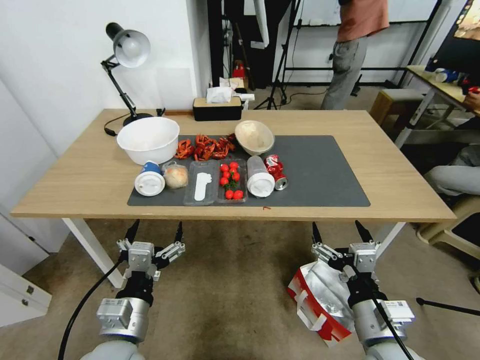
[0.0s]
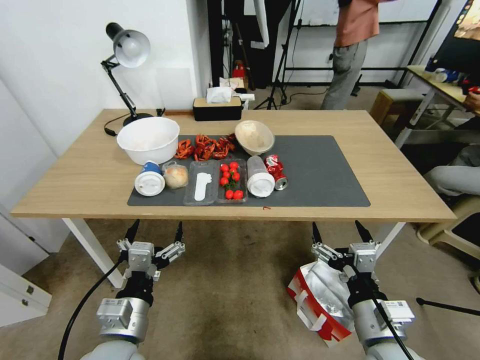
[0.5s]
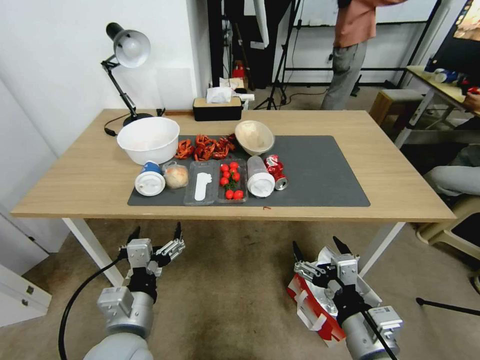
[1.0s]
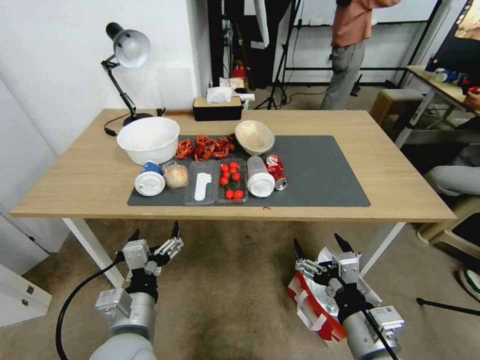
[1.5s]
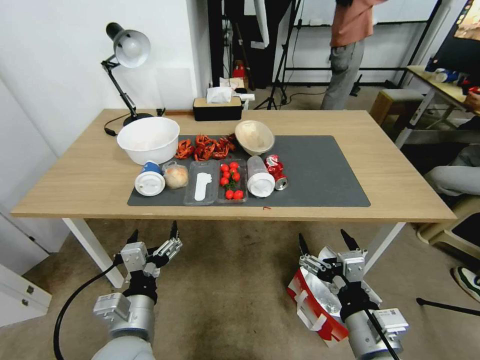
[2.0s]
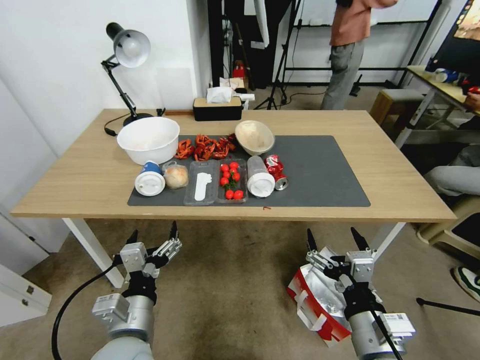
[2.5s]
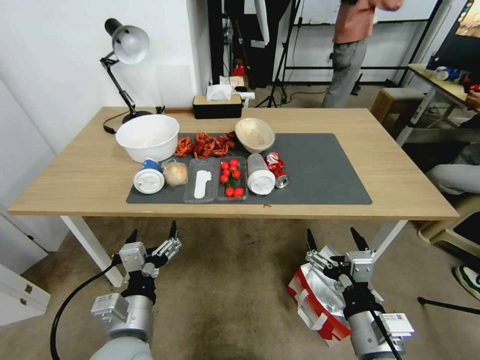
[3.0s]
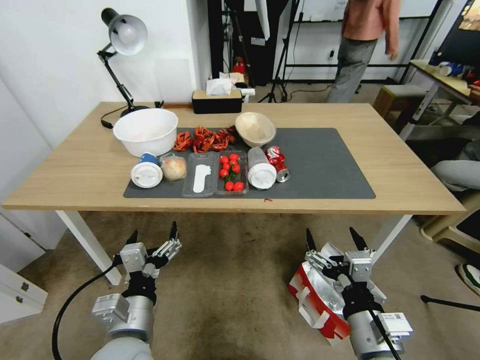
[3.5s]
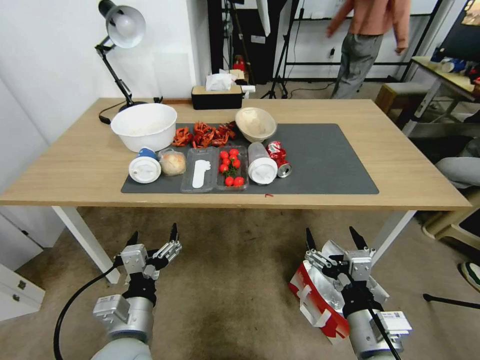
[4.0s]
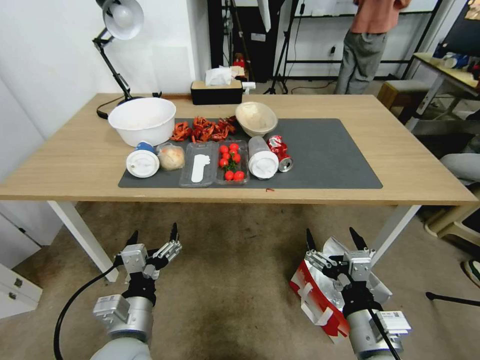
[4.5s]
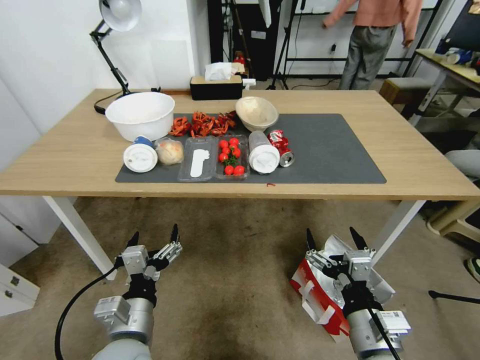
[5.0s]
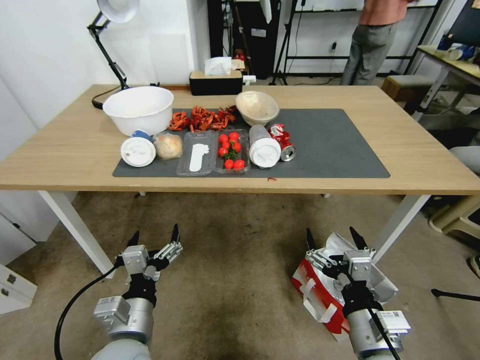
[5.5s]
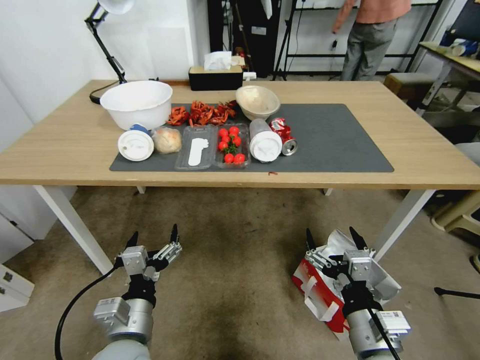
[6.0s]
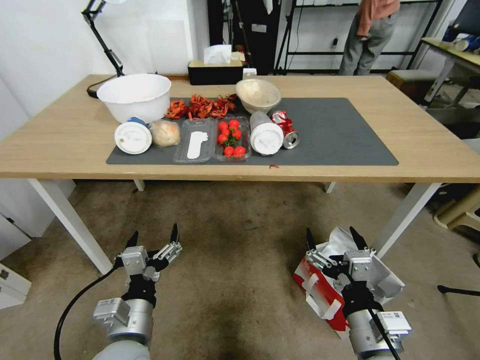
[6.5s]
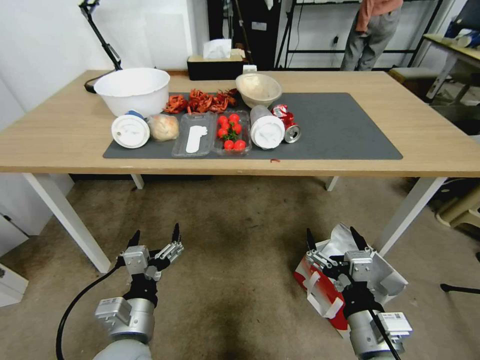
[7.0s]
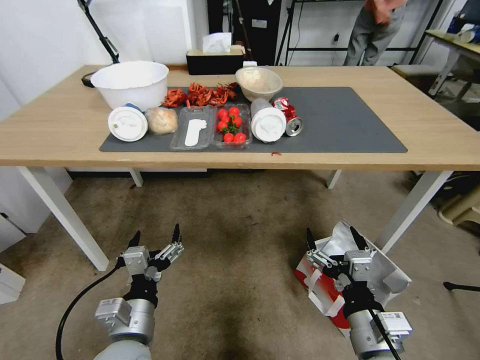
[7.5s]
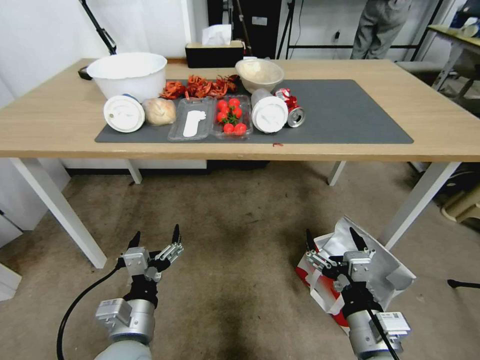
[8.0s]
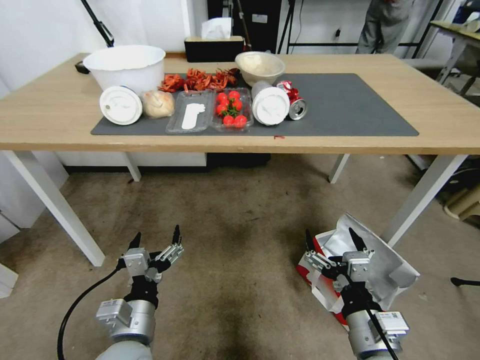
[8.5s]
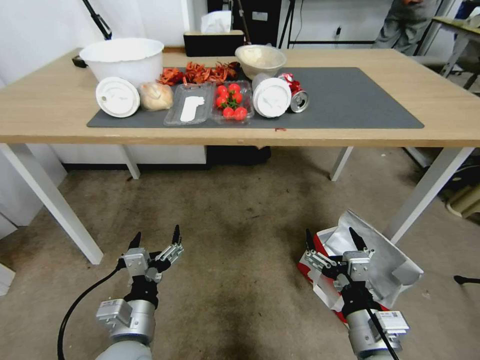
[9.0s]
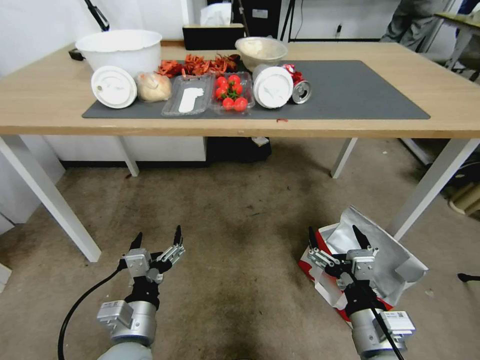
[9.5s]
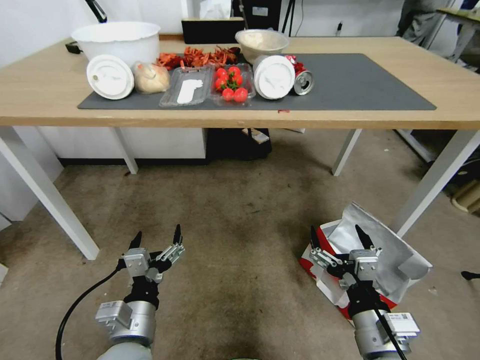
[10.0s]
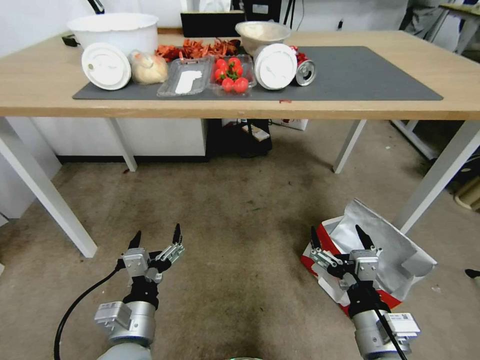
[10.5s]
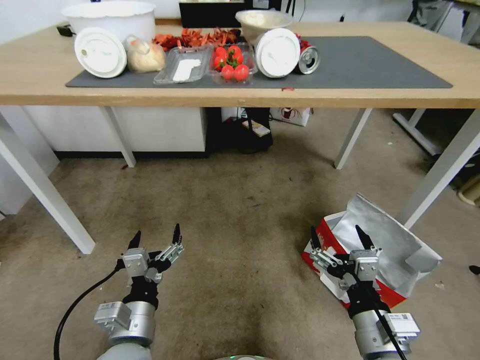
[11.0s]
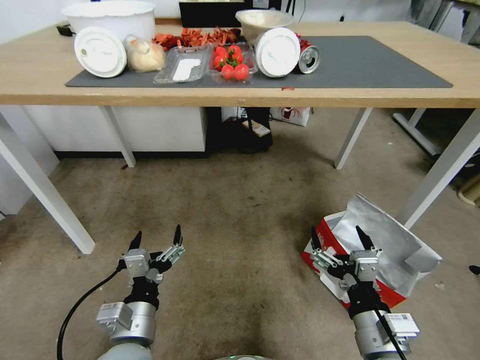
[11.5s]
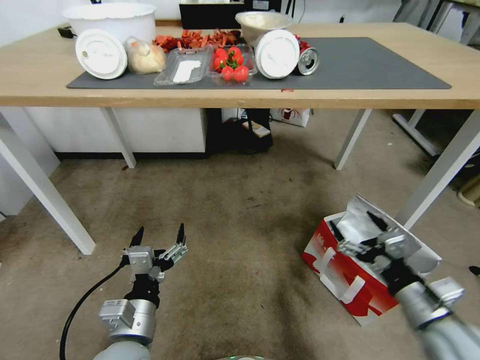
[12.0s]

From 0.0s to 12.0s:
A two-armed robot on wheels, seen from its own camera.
Task of the whole recording: Pick up the food delivery bag from the floor and place it on the table.
From 10.0s to 12.0s: The right gripper shifts some 15 cm to the right and forward.

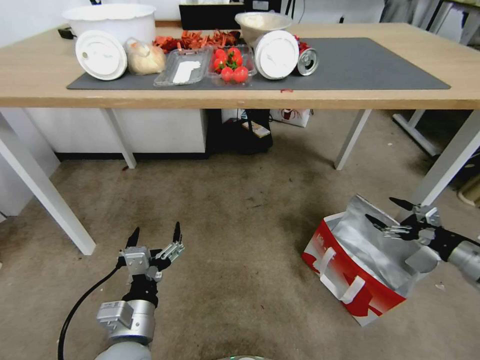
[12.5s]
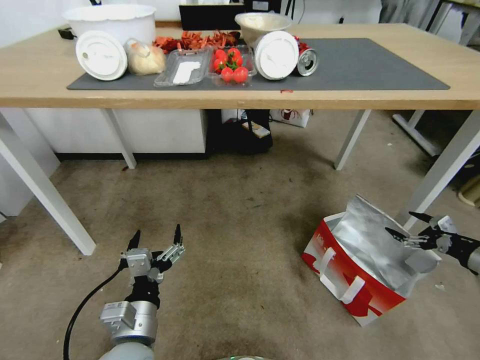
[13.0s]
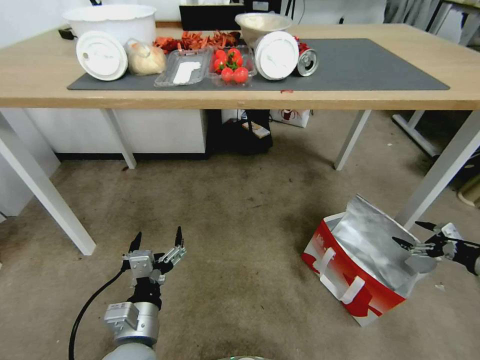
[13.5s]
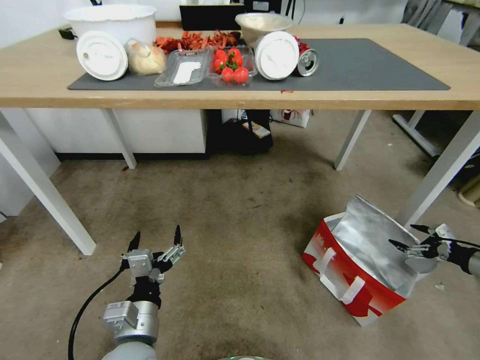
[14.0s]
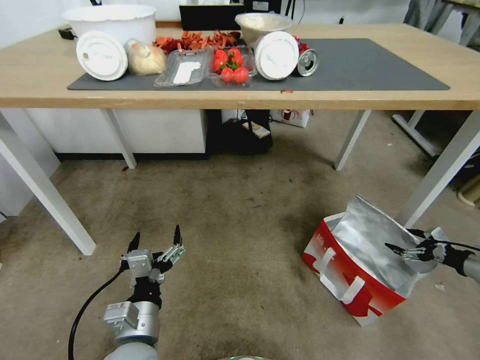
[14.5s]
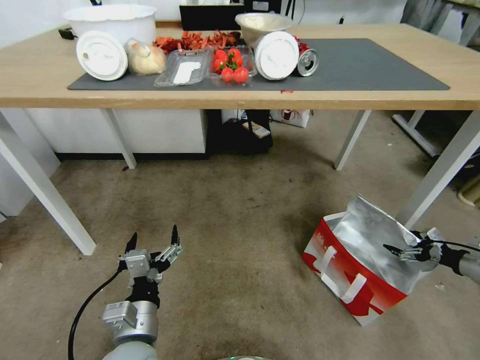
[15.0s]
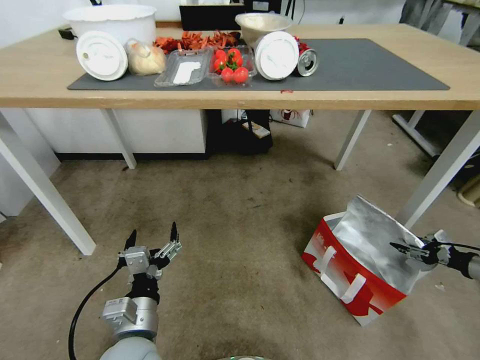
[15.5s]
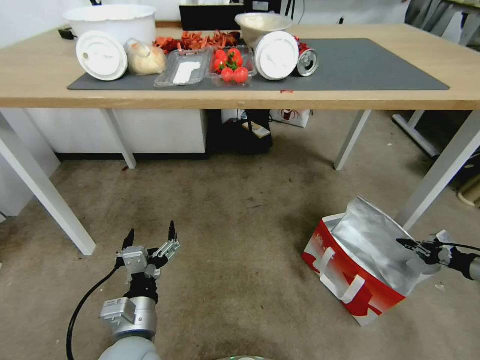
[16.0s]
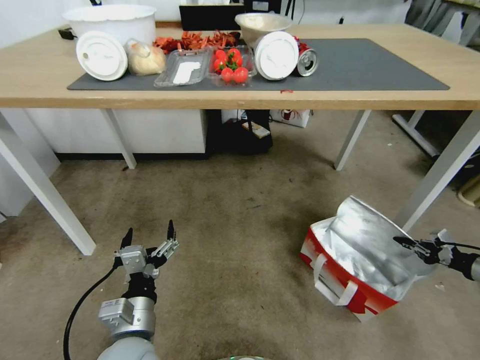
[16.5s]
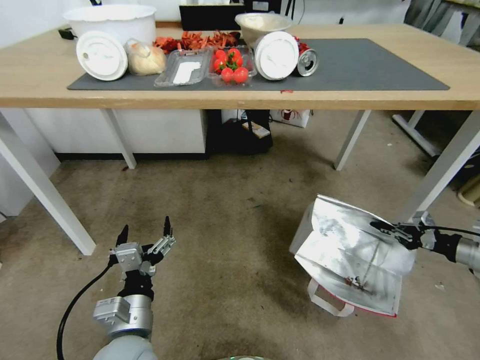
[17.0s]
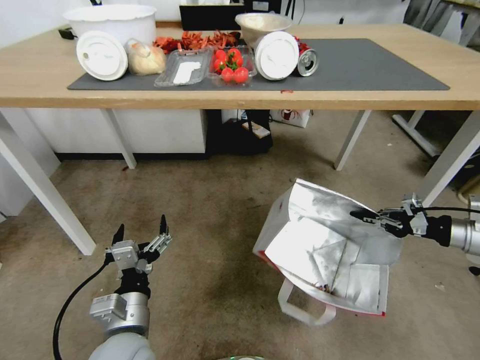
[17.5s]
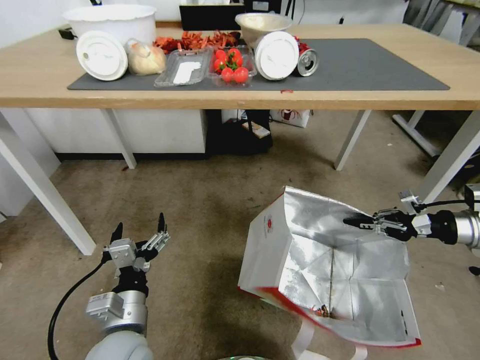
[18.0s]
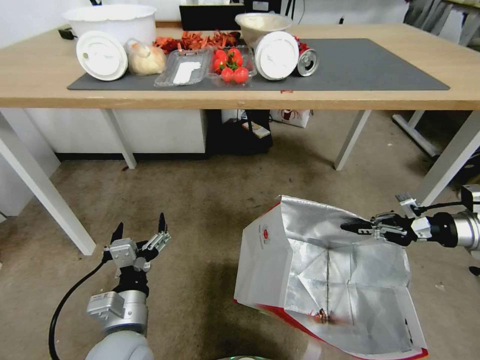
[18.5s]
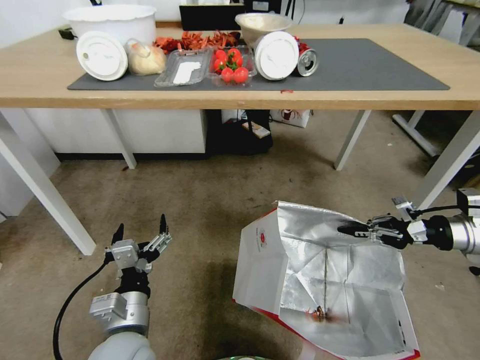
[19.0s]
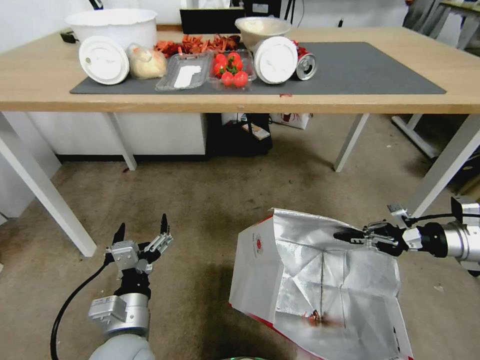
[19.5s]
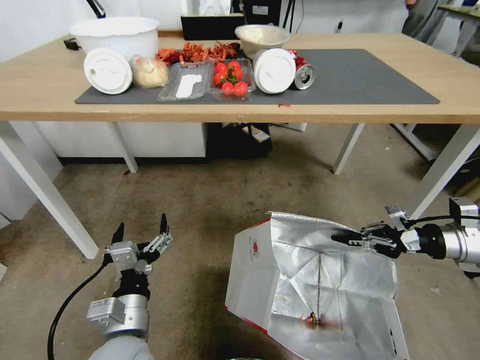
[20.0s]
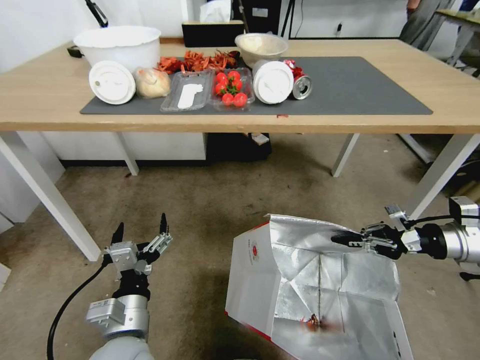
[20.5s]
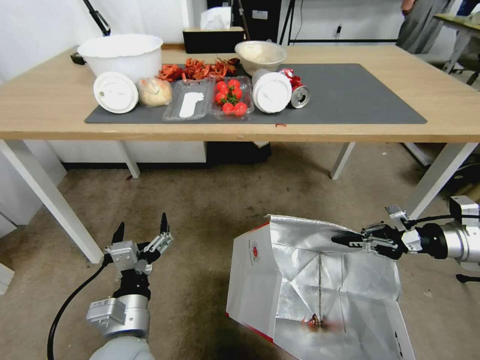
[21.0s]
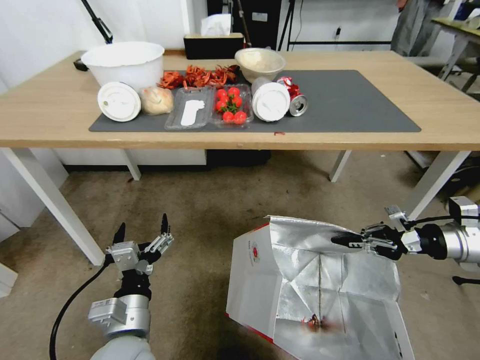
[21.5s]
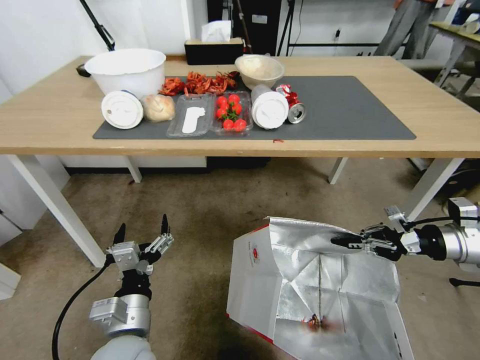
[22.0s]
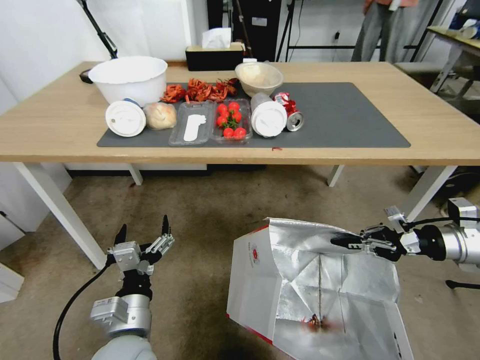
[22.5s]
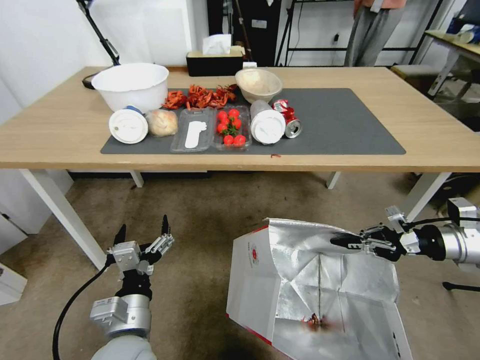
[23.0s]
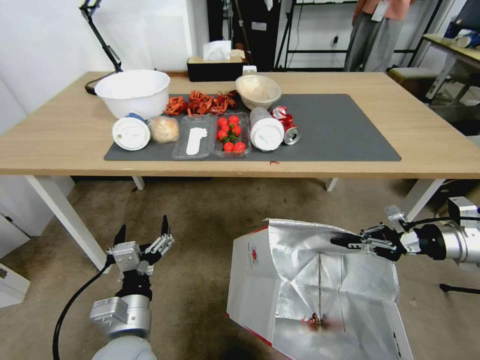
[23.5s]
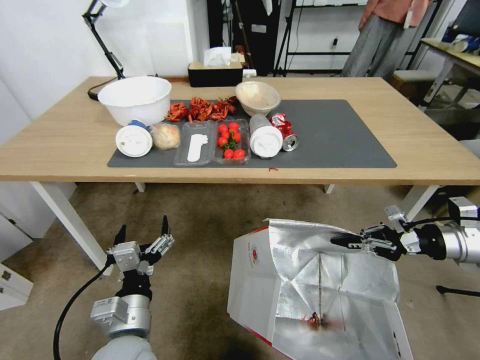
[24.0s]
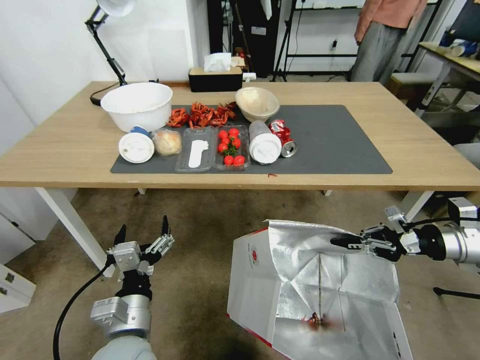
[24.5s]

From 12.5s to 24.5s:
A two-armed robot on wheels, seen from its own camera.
Task of the whole recording: Pick up the food delivery bag from the floor and place it on the table.
From 12.5s to 14.5s: The right gripper shifts about 15 cm to the right and downward.
From 14.5s to 16.5s: The right gripper closes its fingers.
From 16.5s to 18.5s: The right gripper goes some 20 cm upward and to the left.

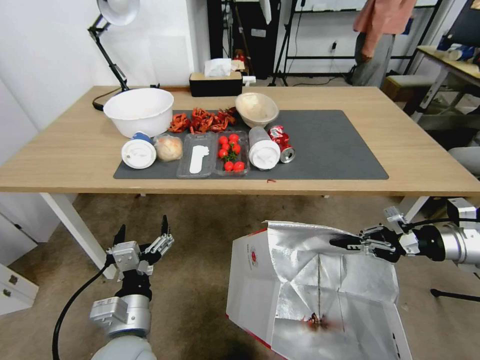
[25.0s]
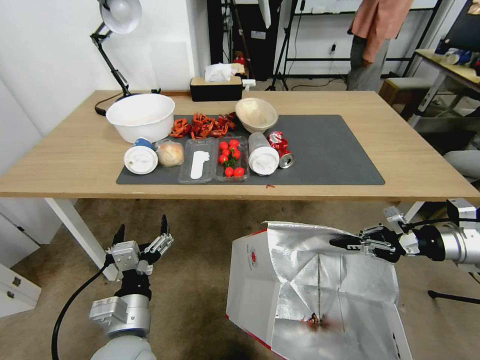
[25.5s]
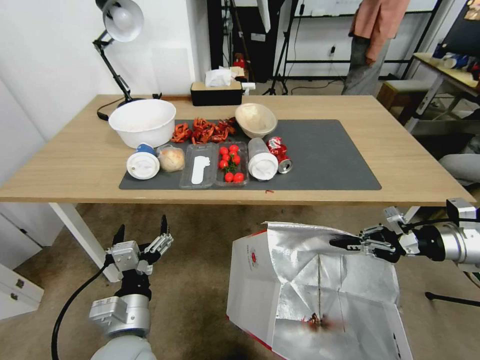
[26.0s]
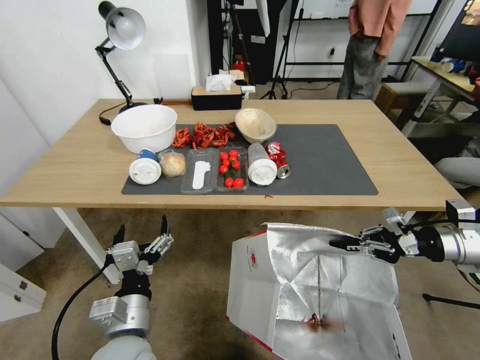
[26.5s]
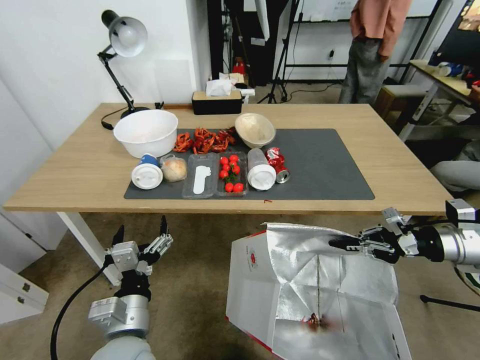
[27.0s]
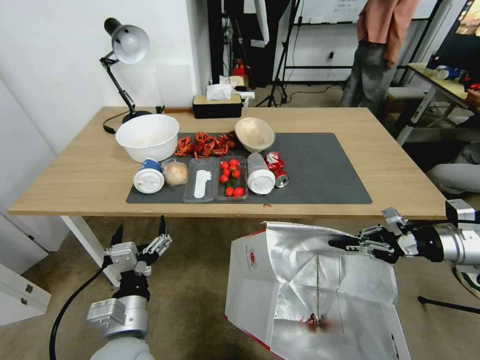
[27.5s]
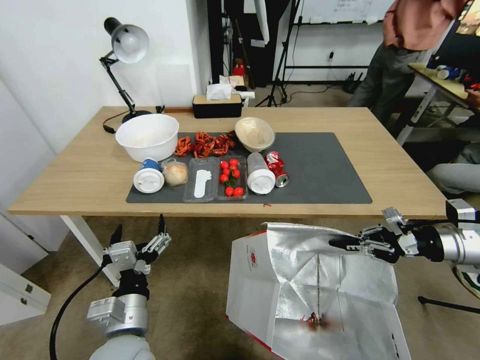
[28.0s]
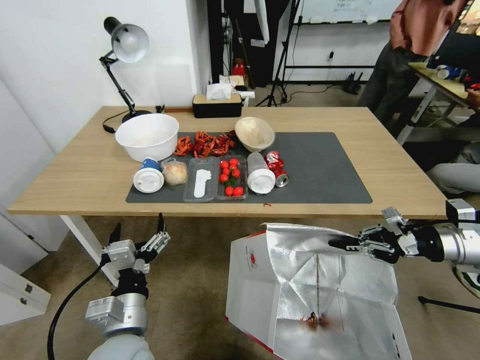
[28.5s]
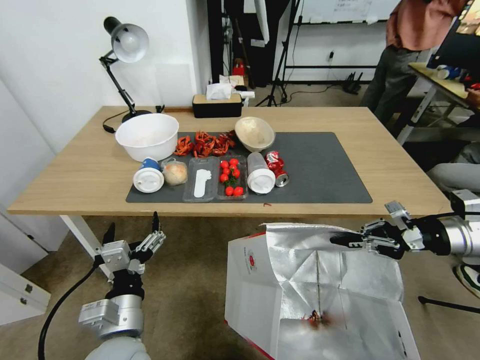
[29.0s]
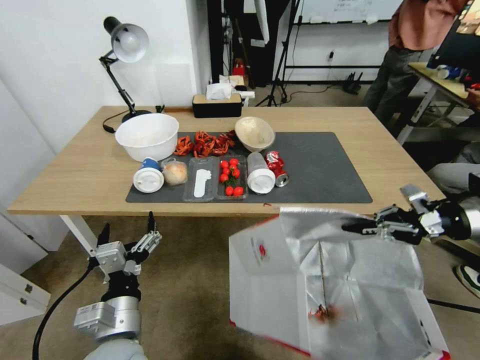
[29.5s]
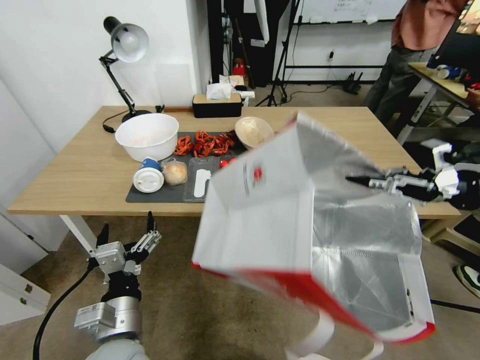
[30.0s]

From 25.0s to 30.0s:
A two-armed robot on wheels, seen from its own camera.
Task of the whole recording: Pick up the food delivery bag from the floor and place it on the table.
From 27.5s to 30.0s: The right gripper heads upward, covering approximately 10 cm.
